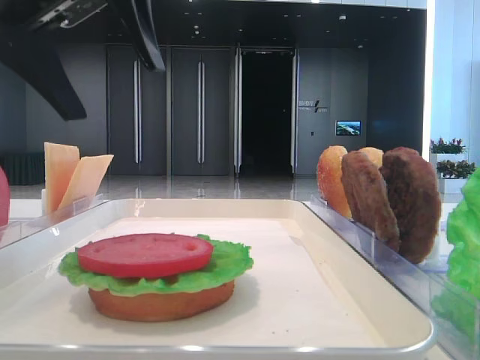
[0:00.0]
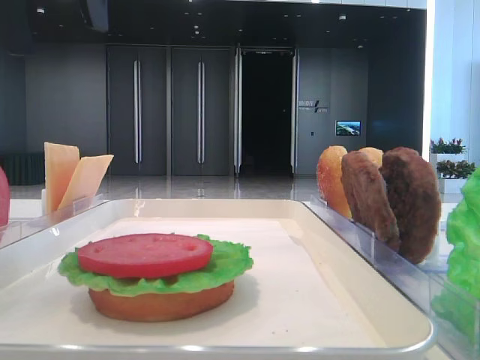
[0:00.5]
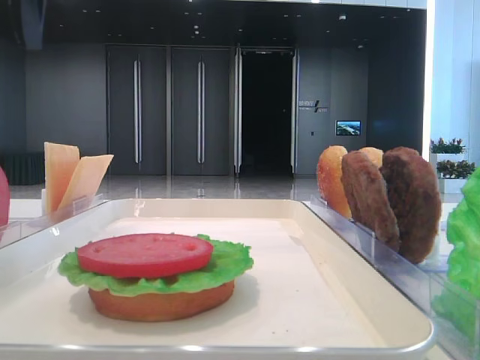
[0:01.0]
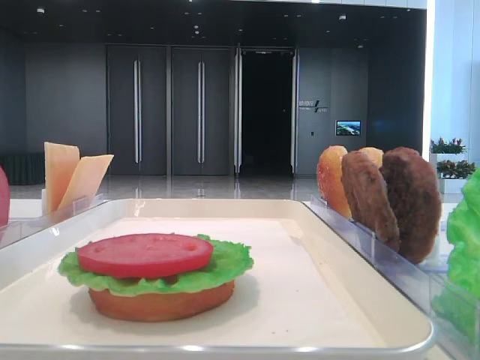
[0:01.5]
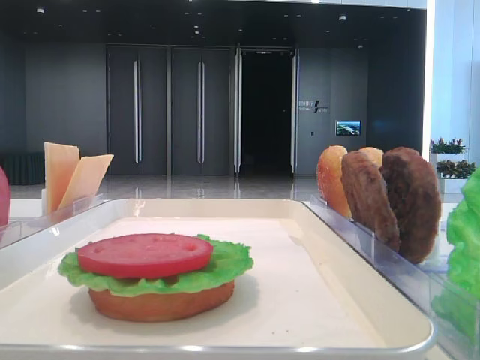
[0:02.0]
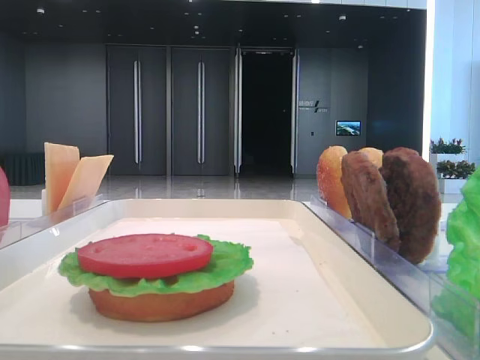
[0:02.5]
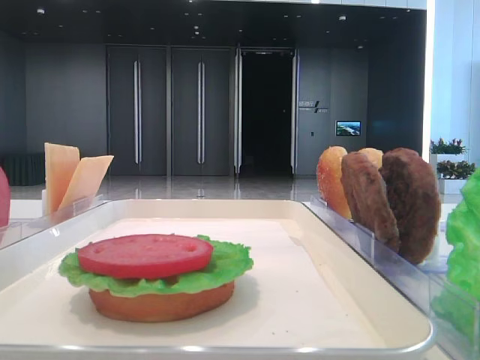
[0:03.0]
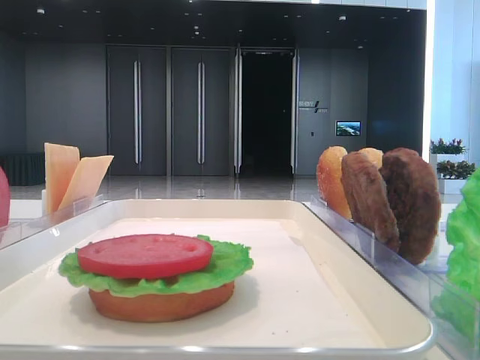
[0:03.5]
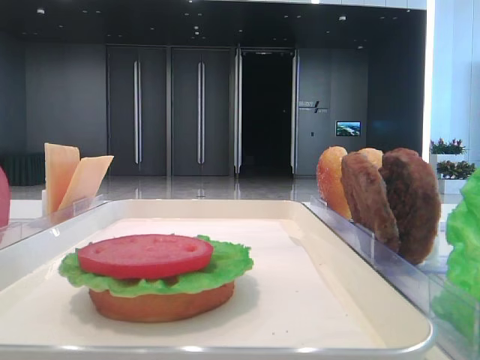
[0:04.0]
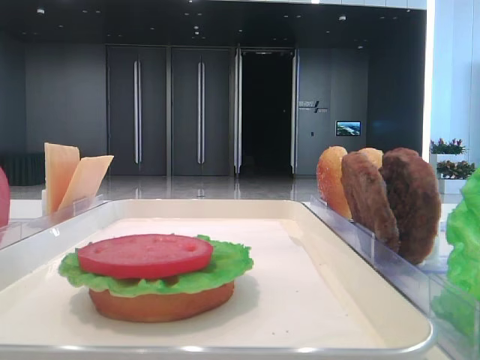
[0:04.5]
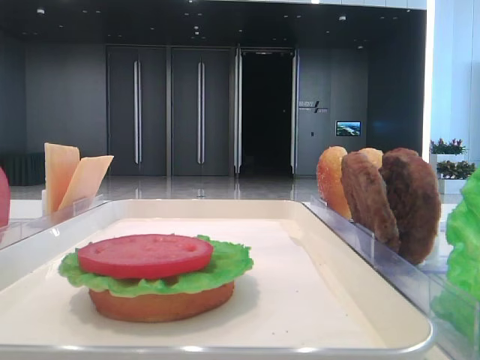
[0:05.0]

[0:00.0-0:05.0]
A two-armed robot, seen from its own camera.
0:00.0 to 0:02.5: The left gripper heads upward, to the left and backward, covering approximately 25 cm.

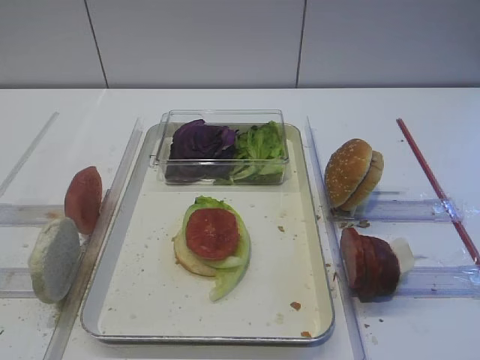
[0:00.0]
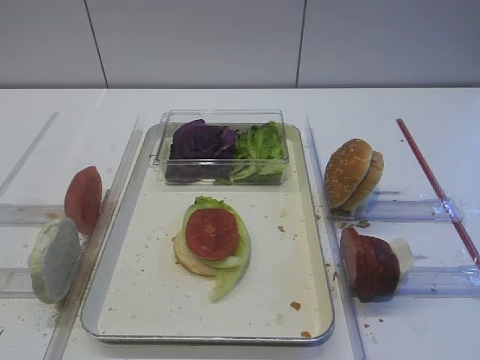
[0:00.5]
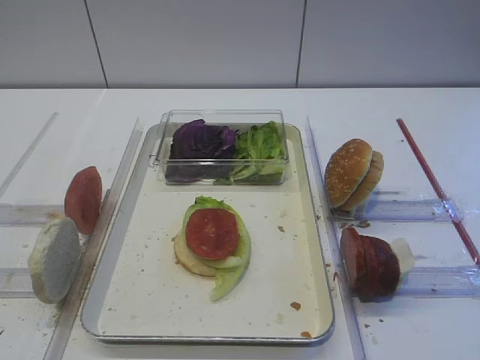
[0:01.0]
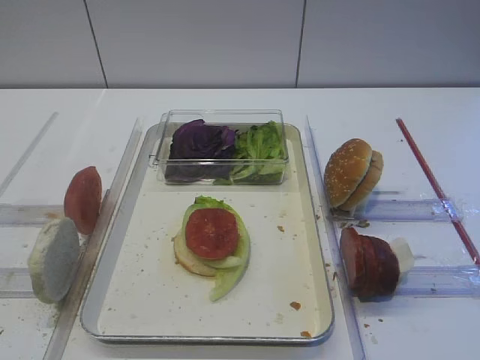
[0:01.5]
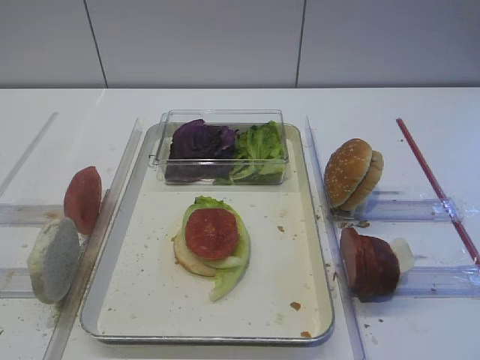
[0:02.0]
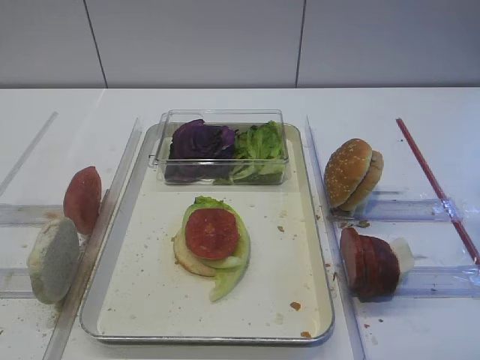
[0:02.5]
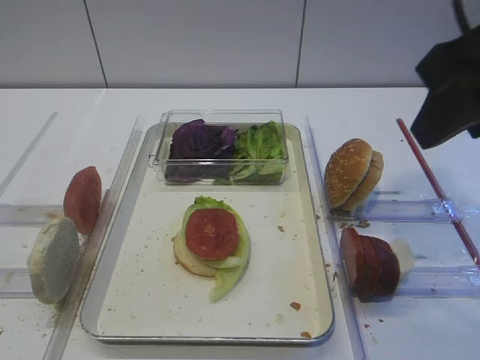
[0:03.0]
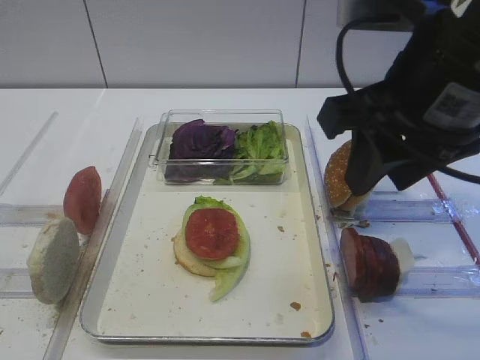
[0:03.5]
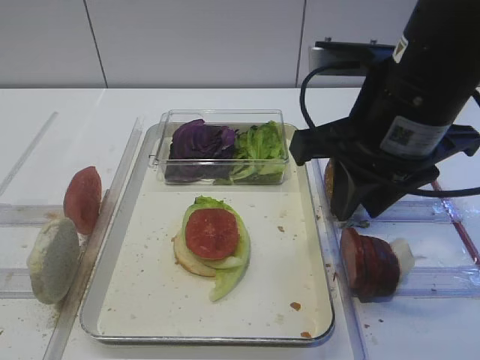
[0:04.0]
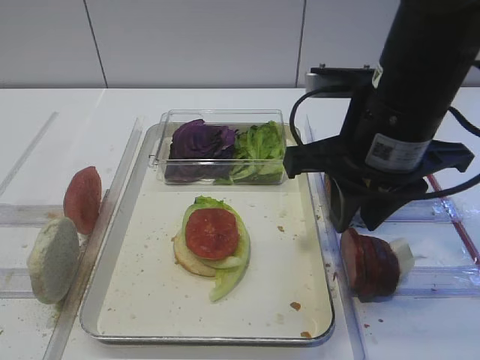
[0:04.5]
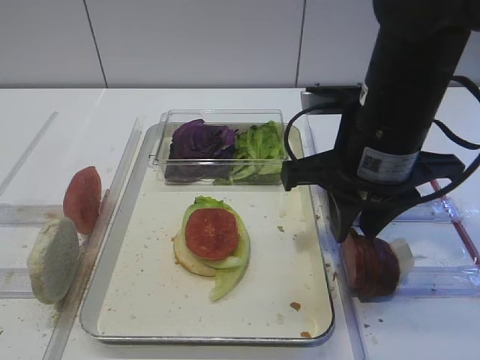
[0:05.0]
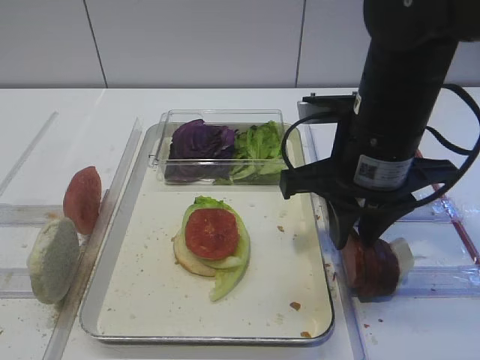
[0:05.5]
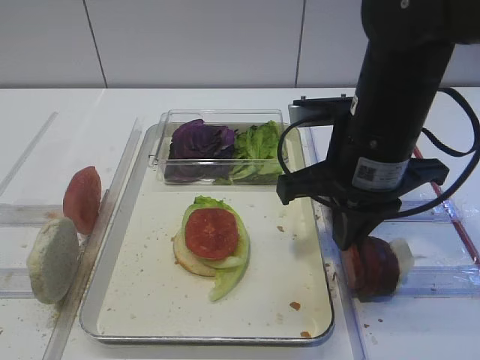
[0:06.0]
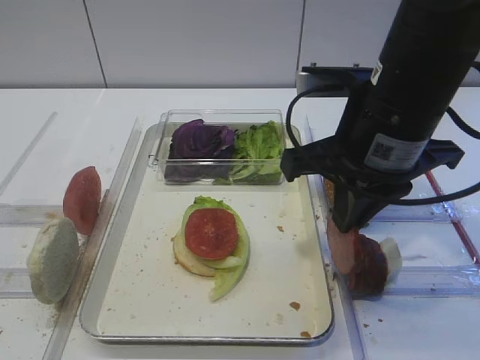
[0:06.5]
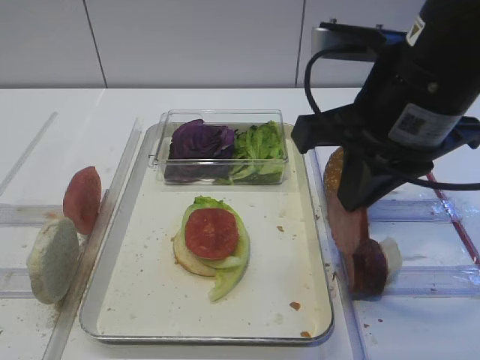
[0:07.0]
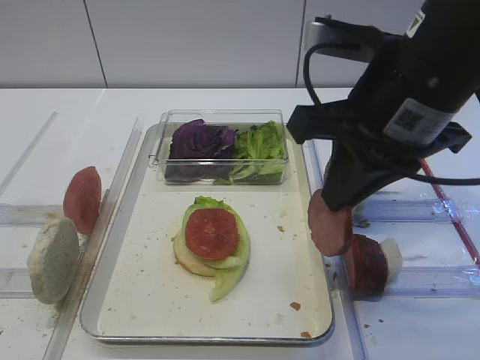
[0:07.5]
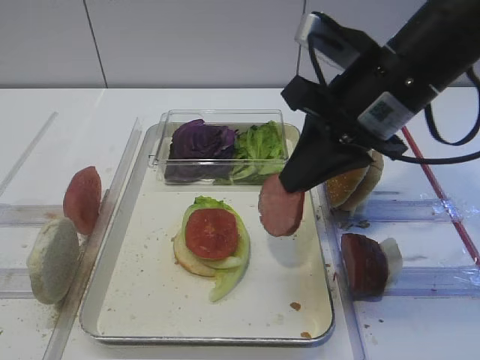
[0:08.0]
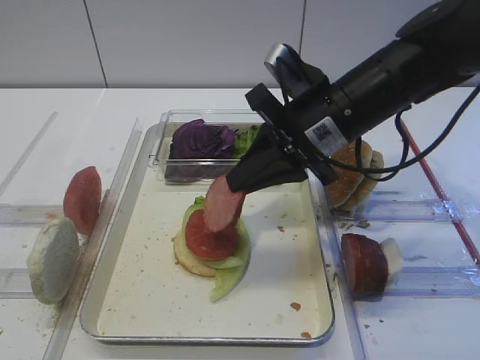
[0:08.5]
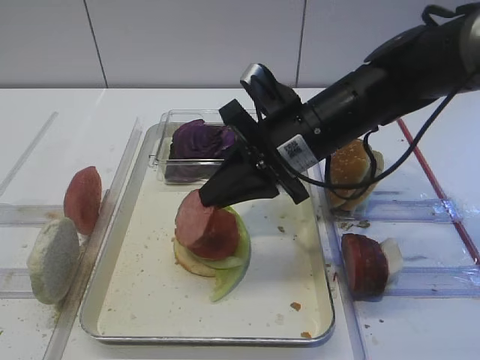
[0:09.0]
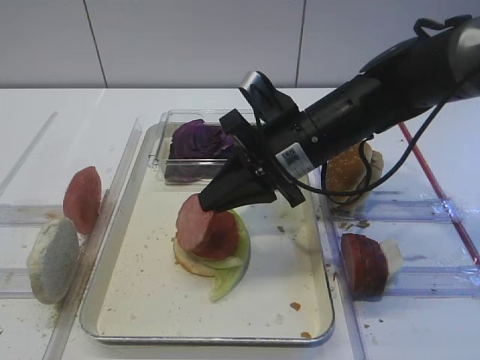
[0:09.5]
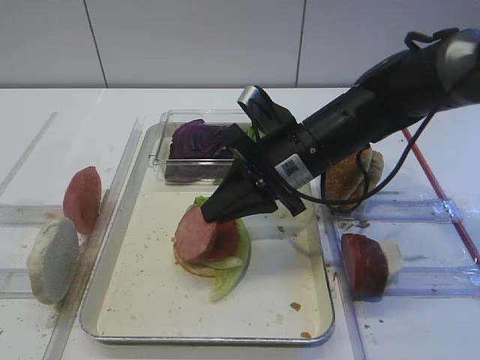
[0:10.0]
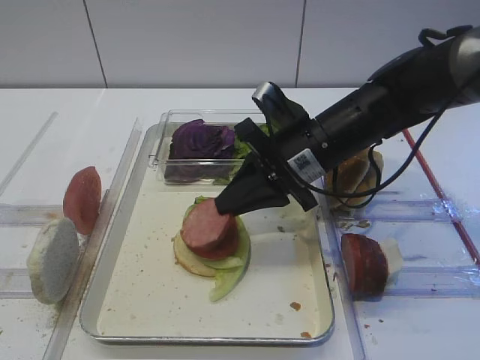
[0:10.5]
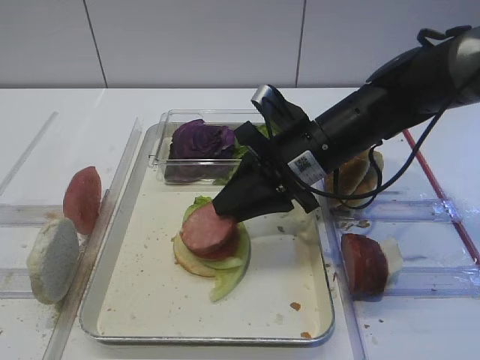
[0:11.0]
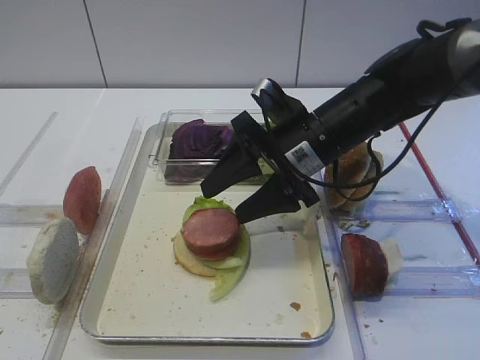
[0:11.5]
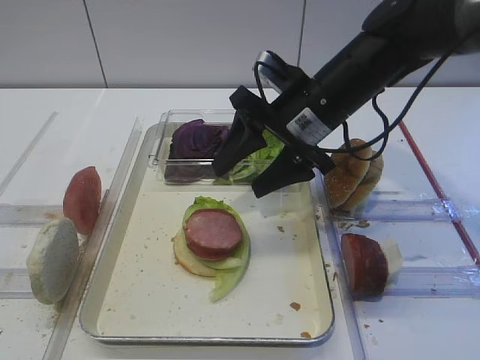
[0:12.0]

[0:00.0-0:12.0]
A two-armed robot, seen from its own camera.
Step, 0:00.0 to 0:06.5: Pick up the cutlet with the right gripper.
0:02.0 to 0:04.0: The right gripper is displaced forward, to the left and downward by some 25 cm.
0:04.0 to 0:06.0: The right gripper goes some 5 cm downward, and closes its fingers.
0:08.0 to 0:10.0: The right gripper moves downward and to the left, some 10 cm.
0:10.0 to 0:12.0: The right gripper opens.

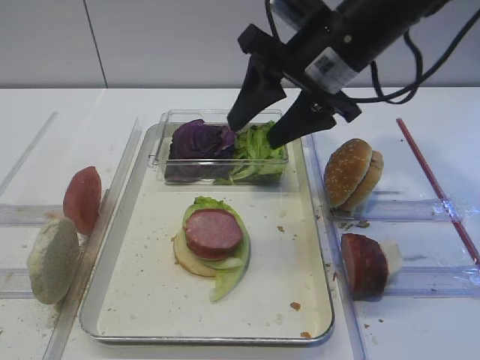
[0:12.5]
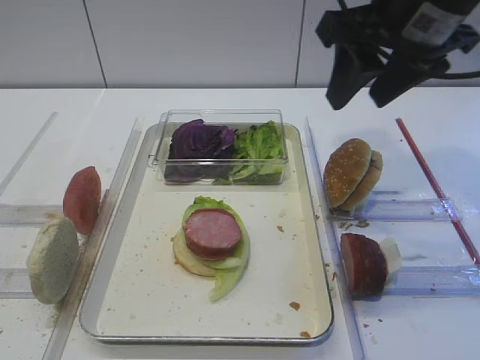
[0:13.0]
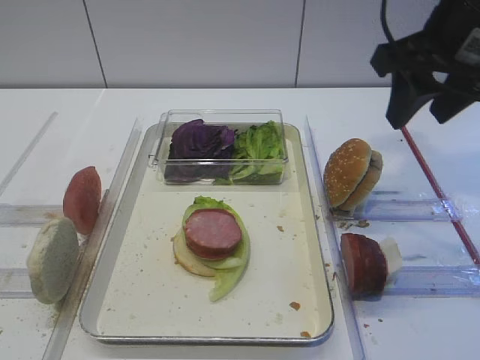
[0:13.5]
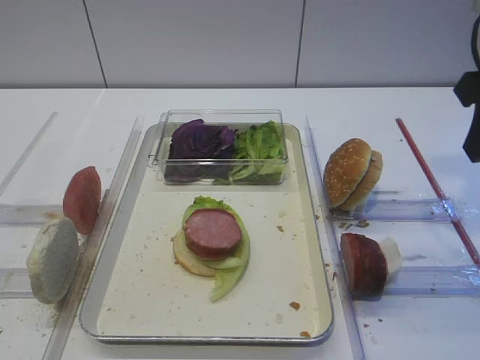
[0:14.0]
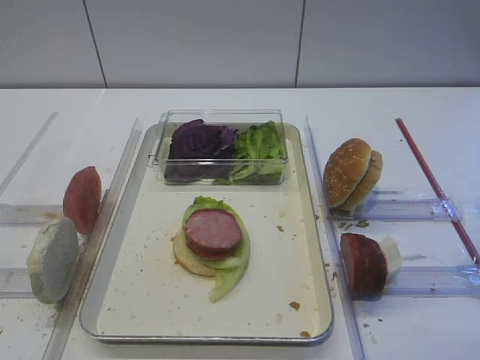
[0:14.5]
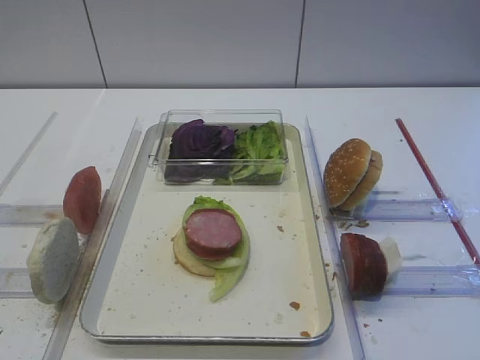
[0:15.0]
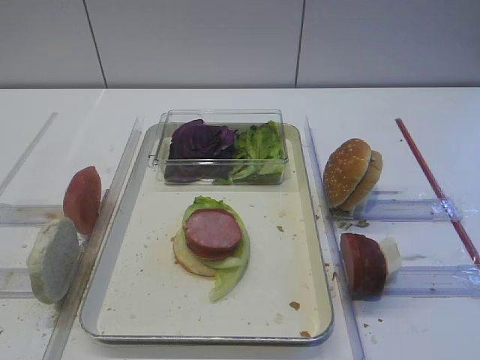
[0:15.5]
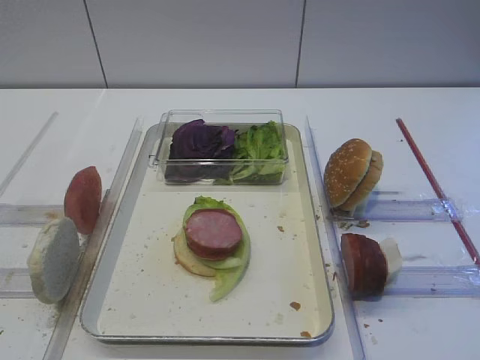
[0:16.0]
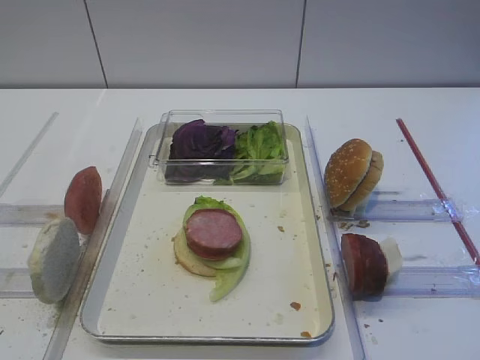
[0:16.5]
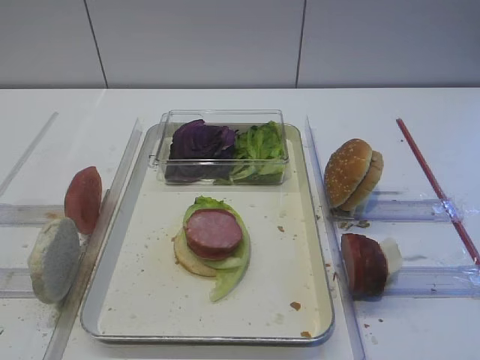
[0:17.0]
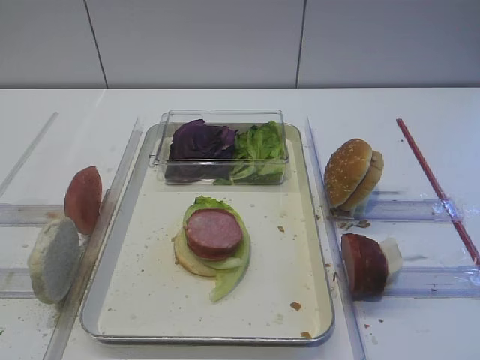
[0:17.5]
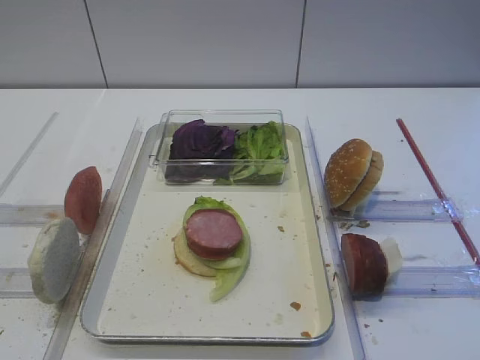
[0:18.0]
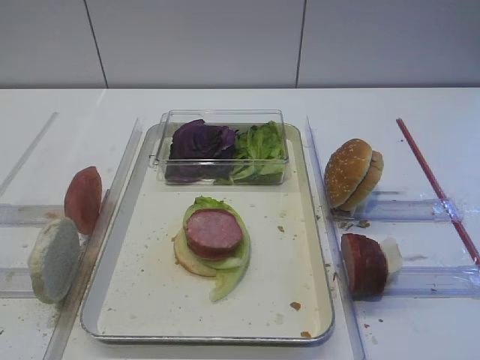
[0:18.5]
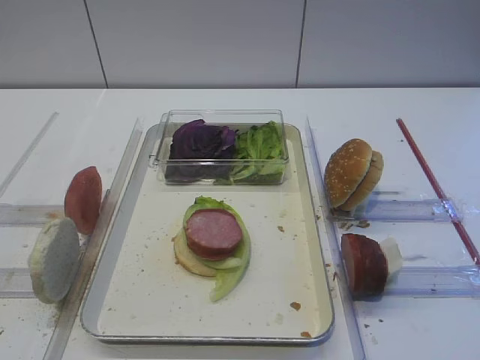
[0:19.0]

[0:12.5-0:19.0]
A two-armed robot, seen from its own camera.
0:12.5 to 0:14.5: The right gripper goes roughly 25 cm backward and to the right.
0:17.0 to 0:19.0: Neither gripper changes place.
